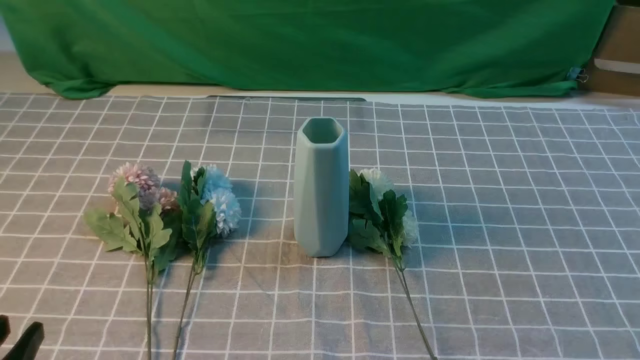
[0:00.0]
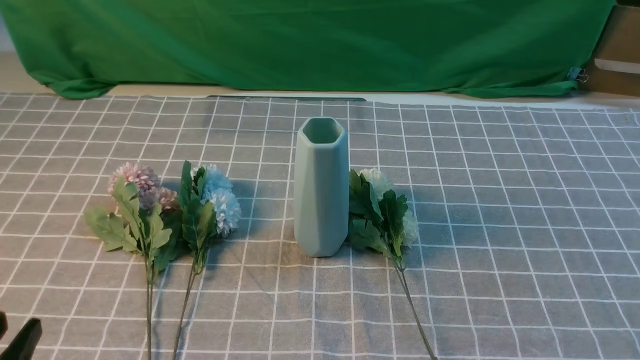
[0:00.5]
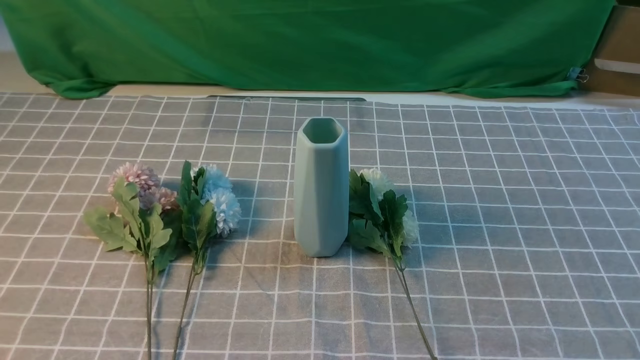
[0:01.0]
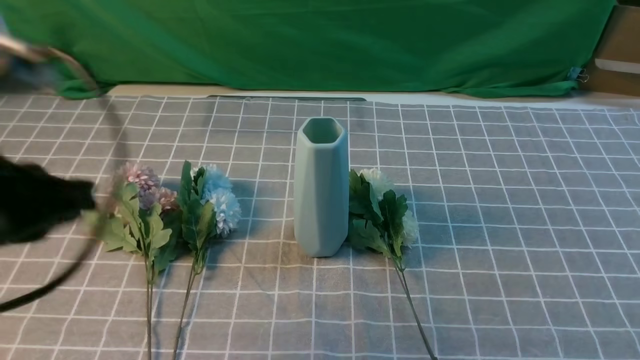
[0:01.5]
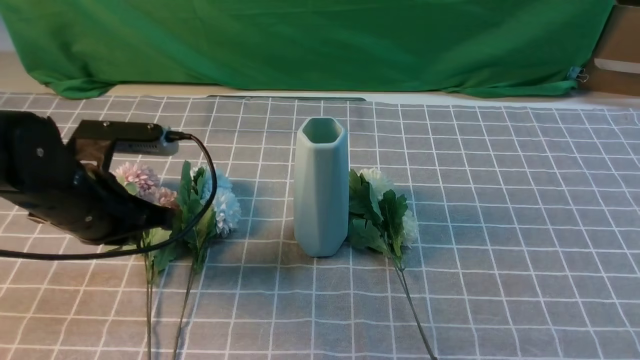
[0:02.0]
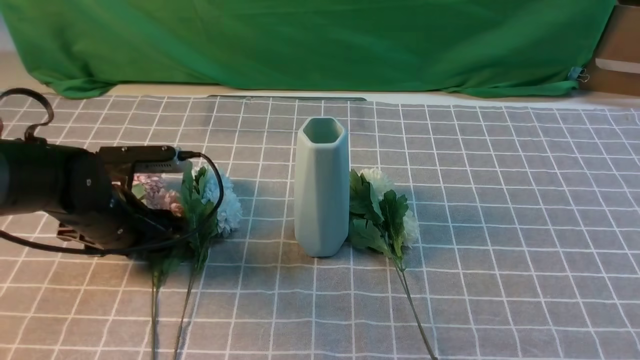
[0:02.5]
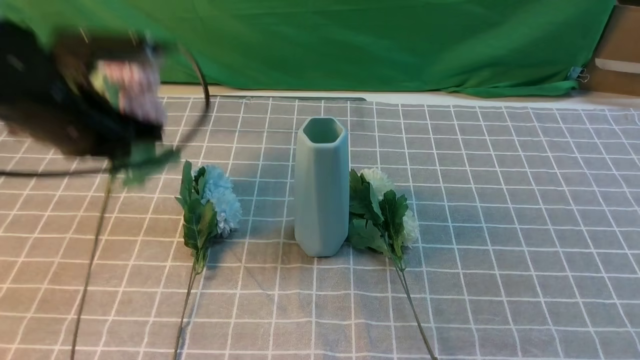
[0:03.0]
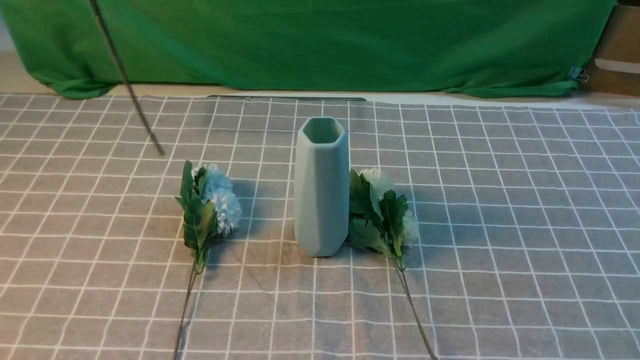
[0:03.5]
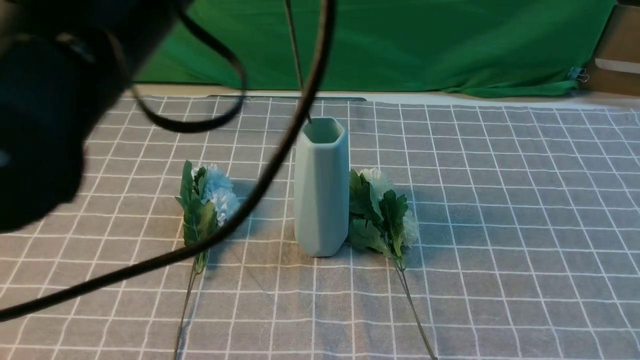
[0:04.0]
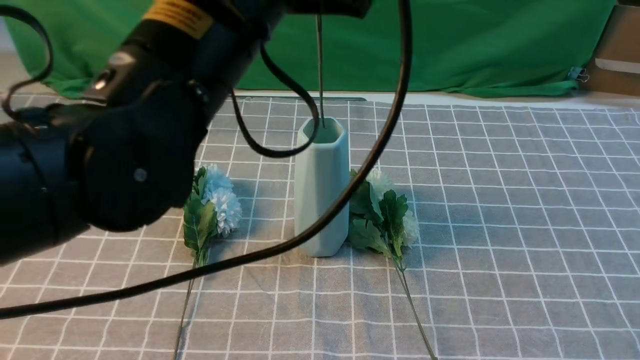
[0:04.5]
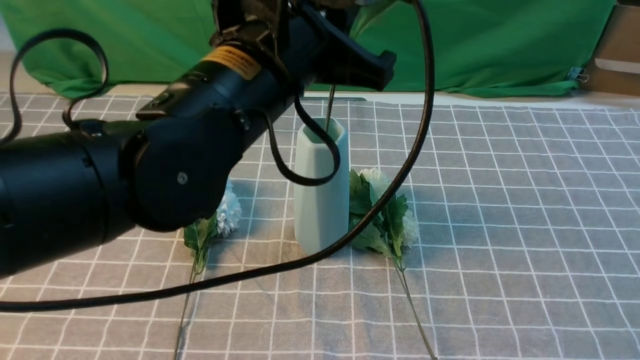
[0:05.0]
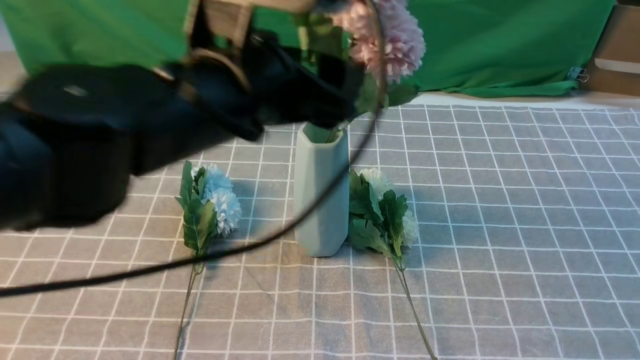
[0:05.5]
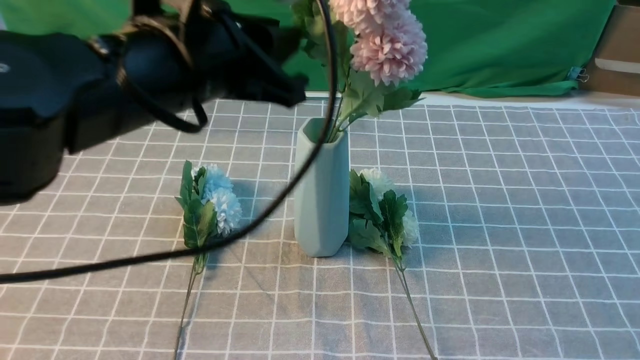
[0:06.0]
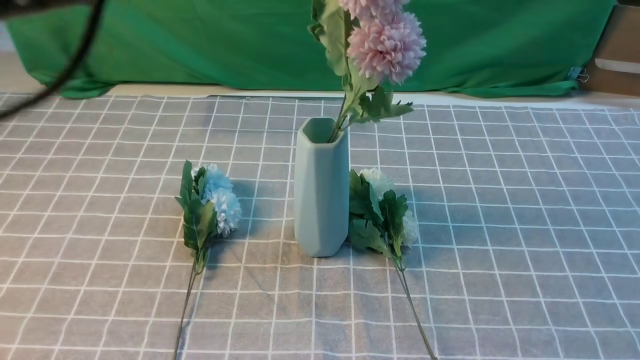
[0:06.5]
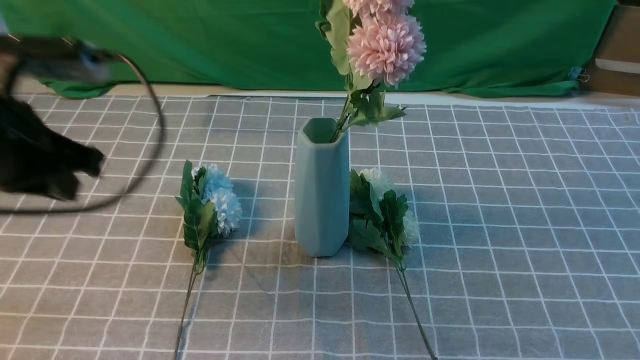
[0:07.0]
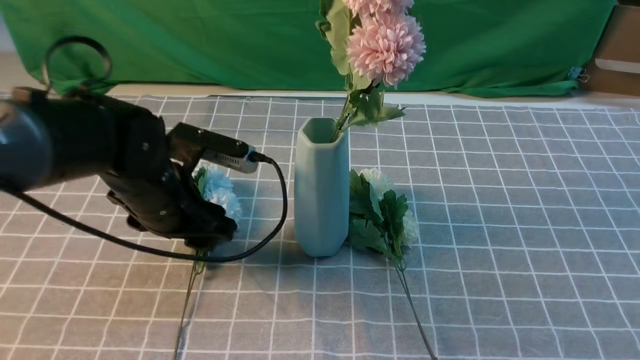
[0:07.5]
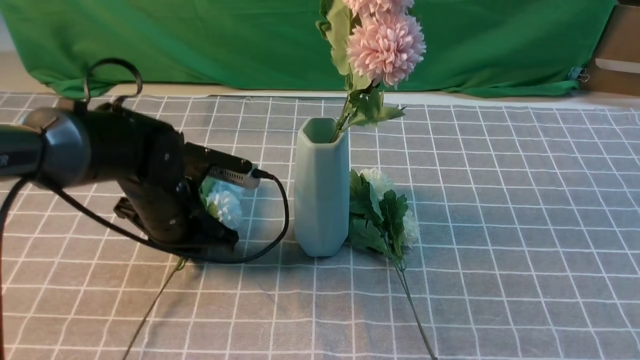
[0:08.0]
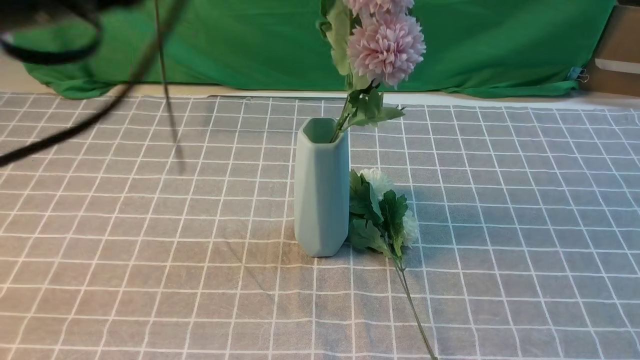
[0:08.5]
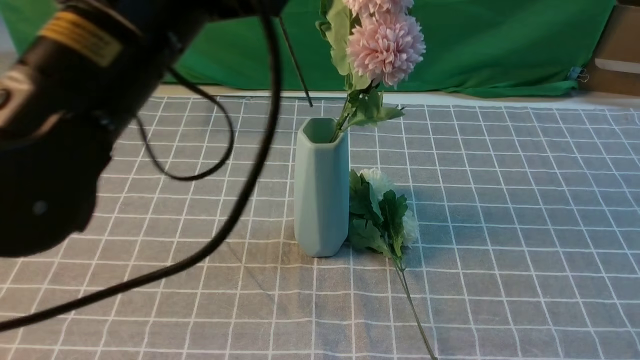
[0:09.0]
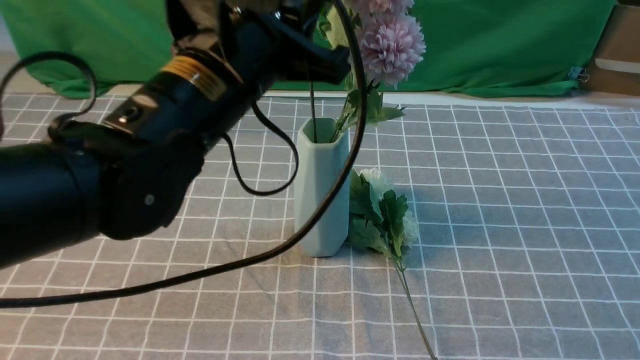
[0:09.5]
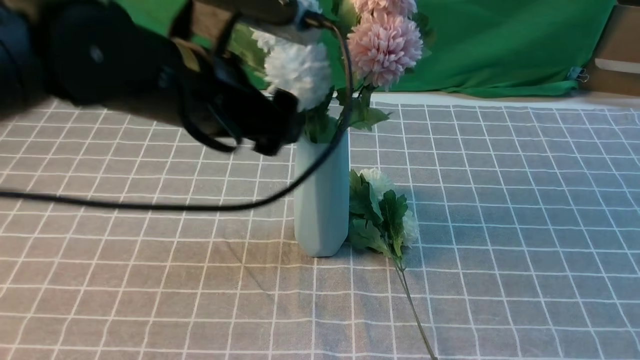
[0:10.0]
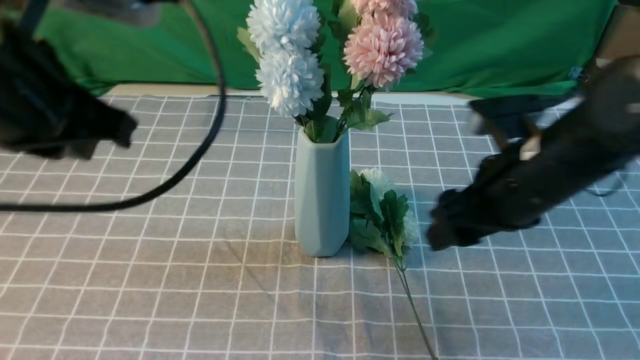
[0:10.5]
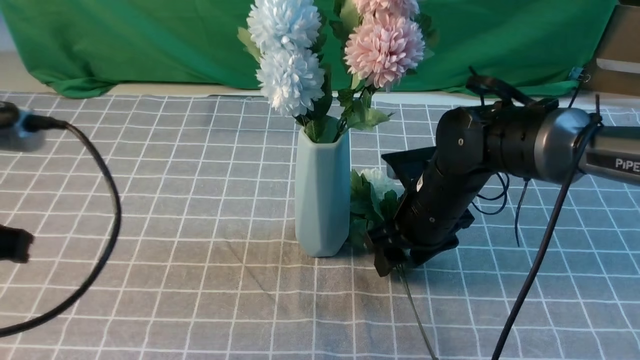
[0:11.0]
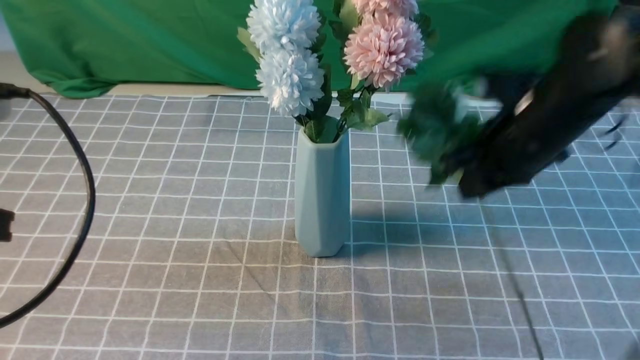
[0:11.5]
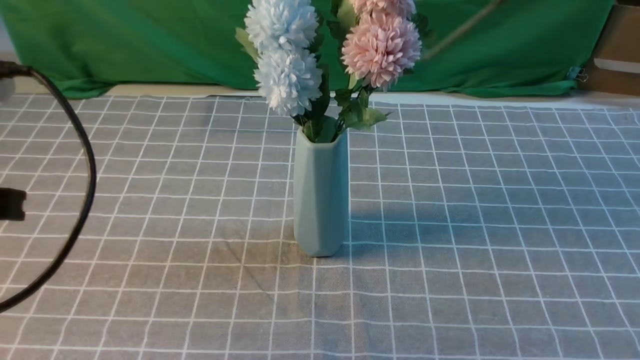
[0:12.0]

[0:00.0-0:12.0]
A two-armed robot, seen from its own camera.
Task of the whole recording: insert the flowers into the vase on the table with the grey tablecloth.
Step, 0:00.0 to 0:02.5: use the left arm to grab a bunch of fresh flowers.
Step, 0:03.0 to 0:06.0: use the left arm to insert the flowers into the vase.
Step, 0:06.5 to 0:07.5: use the left arm to grab a bunch of fresh flowers.
Step, 0:08.5 to 0:10.0: use the left arm to insert the flowers into the vase.
Step, 0:10.5 to 0:11.0: use the right arm to grab a bunch of fresh flowers.
0:00.0 to 0:02.0: The right gripper moves upward, roughly 10 cm, and closes. The left gripper goes about 25 cm forward.
0:02.0 to 0:04.0: The left gripper goes roughly 25 cm upward and to the right, and opens and closes again.
0:04.0 to 0:06.0: The left gripper goes some 5 cm downward, and opens, then closes again.
0:06.0 to 0:08.0: The left gripper moves downward and forward, approximately 20 cm, and opens, then closes once more.
0:08.0 to 0:10.0: The right gripper travels forward by approximately 5 cm, while the left gripper shifts roughly 15 cm upward, and opens up.
0:10.0 to 0:12.0: The right gripper heads upward and to the left, covering some 15 cm, and opens, then closes again. Meanwhile the left gripper shifts approximately 20 cm to the left and backward, and closes.

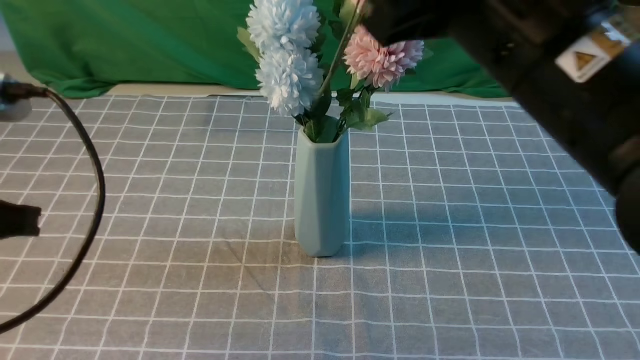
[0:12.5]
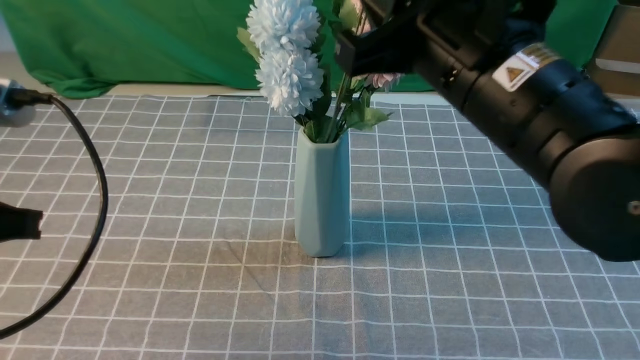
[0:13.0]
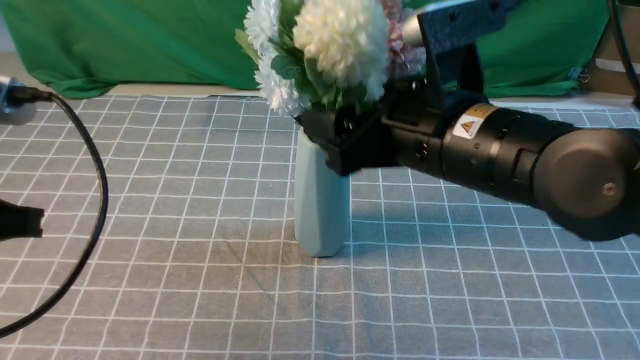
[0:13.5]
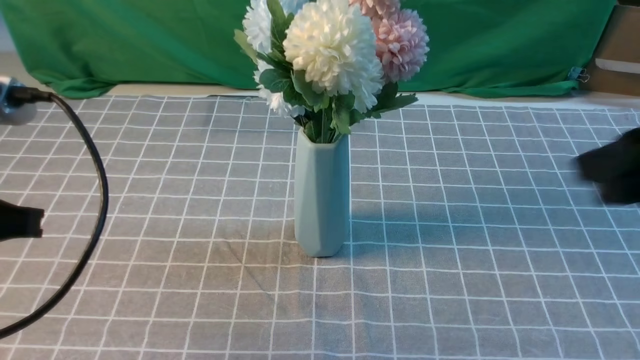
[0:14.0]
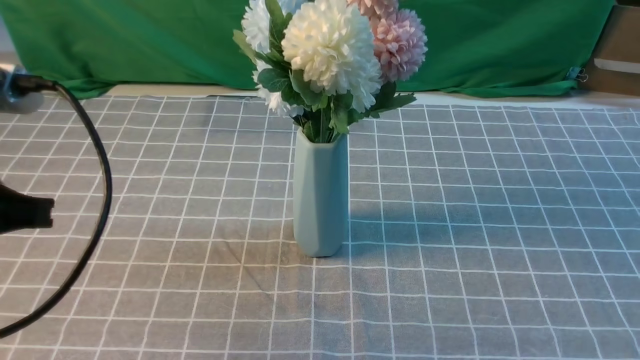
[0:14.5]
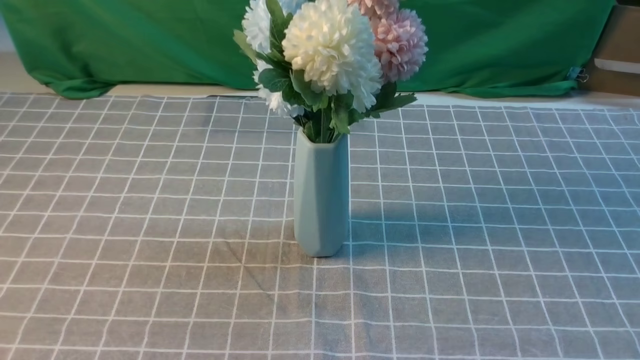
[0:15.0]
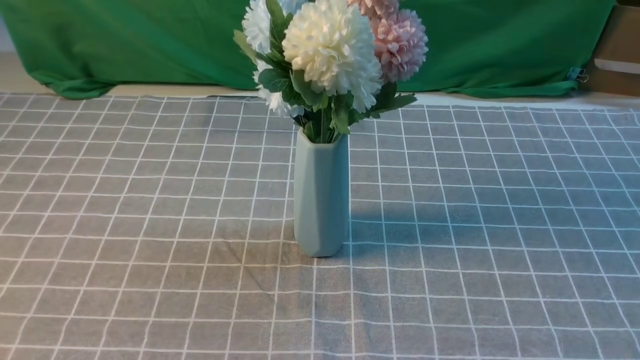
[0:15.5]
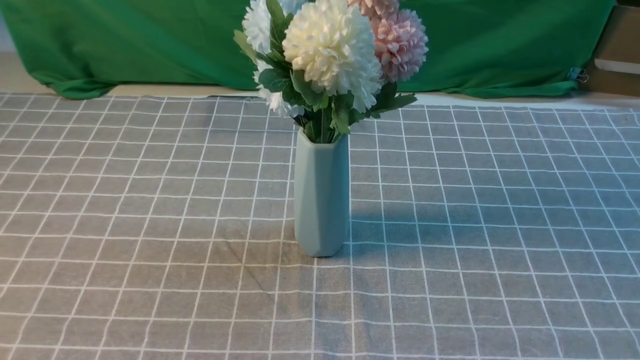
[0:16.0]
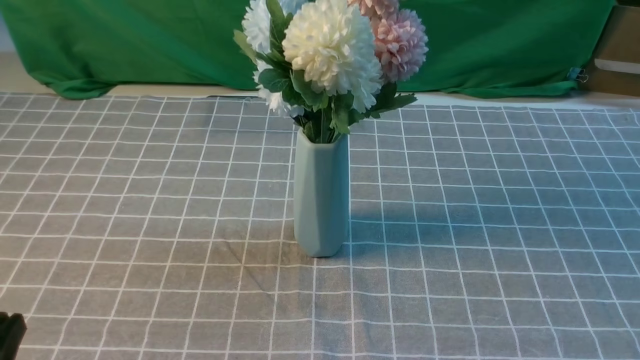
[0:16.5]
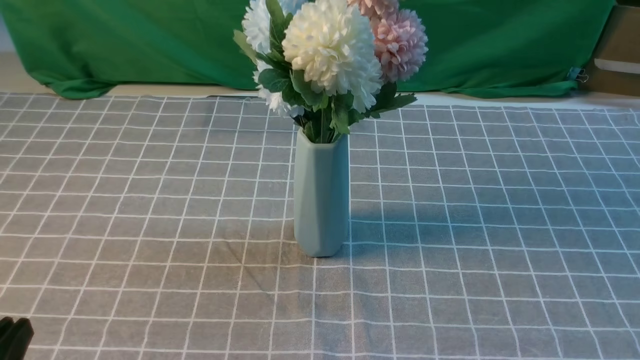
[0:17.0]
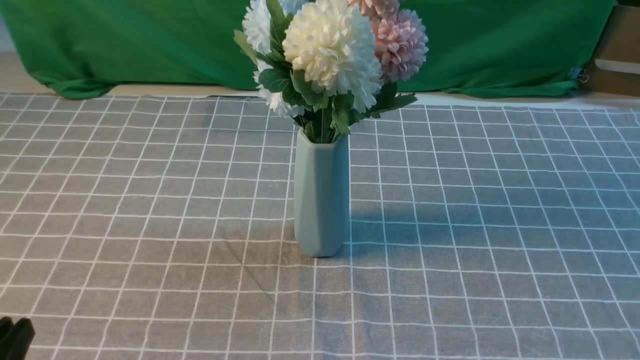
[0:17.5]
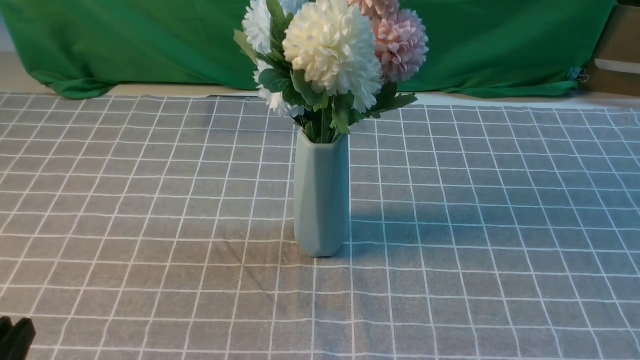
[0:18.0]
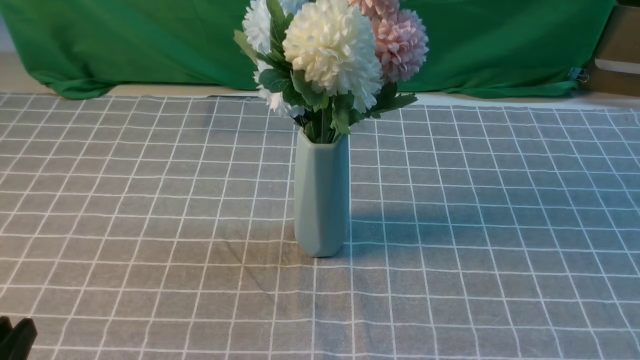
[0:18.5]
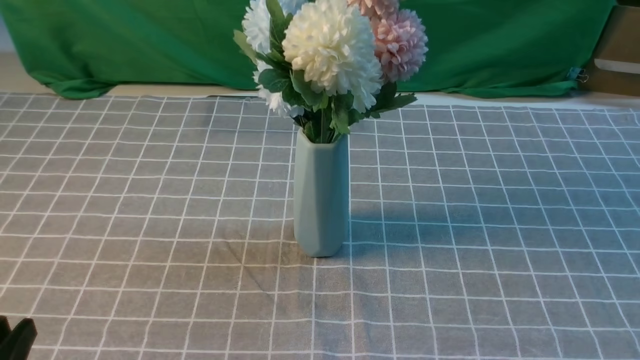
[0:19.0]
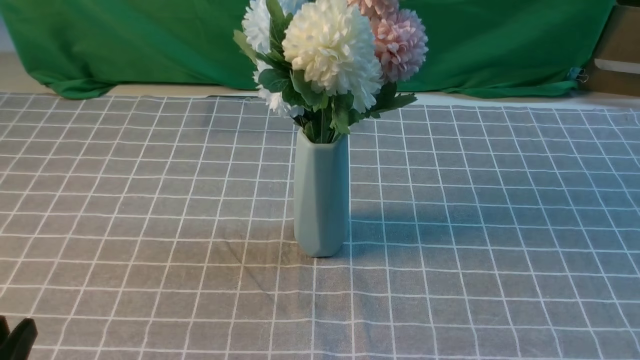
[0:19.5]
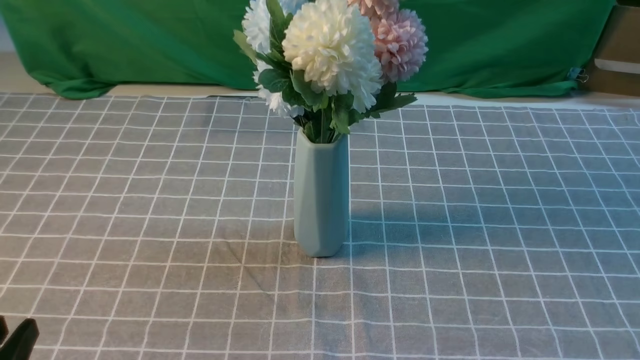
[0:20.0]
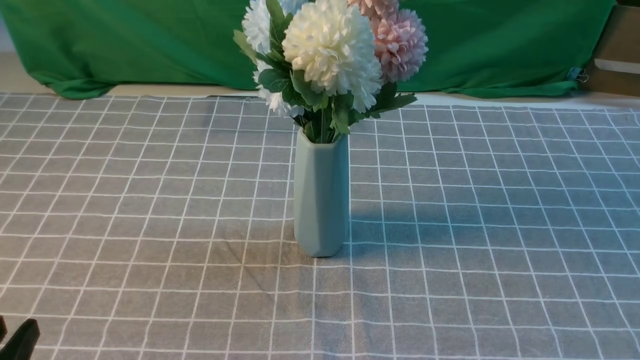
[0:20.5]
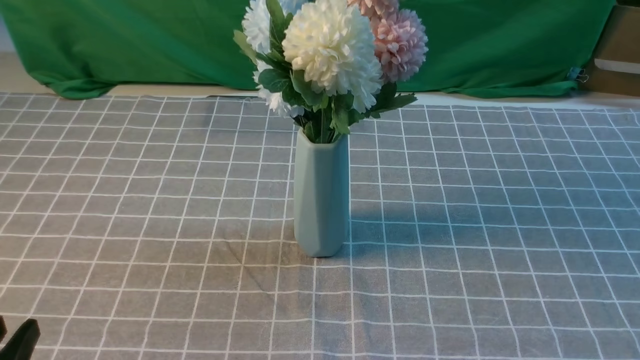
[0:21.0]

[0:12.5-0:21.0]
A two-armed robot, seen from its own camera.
Task of the whole recording: insert the flowers into the vase on the table with the grey tablecloth.
0:12.5 to 0:14.5: The right gripper is displaced backward and to the right by some 30 cm, and opens and closes again.
0:14.5 to 0:16.5: The left gripper moves downward and backward, about 20 cm.
0:19.0 to 0:21.0: The two grippers keep their place.
